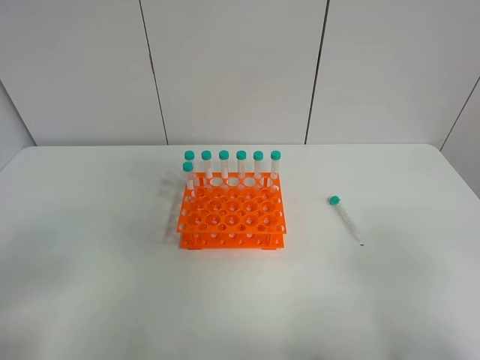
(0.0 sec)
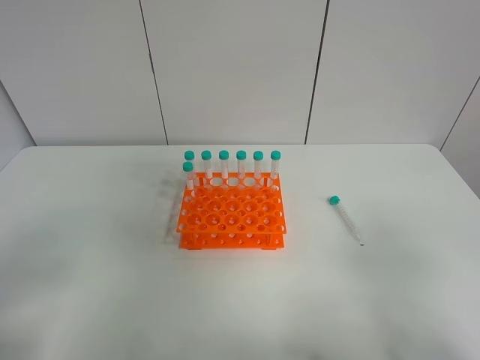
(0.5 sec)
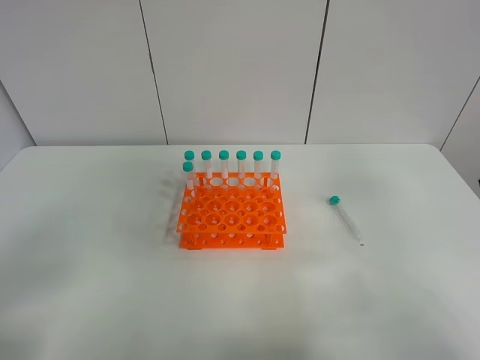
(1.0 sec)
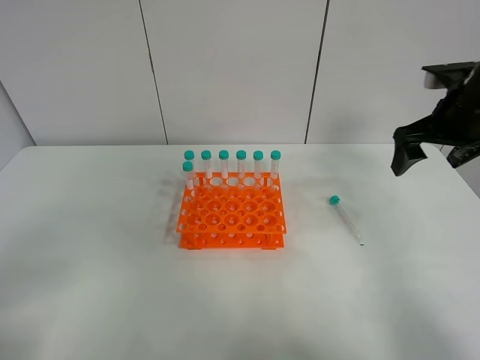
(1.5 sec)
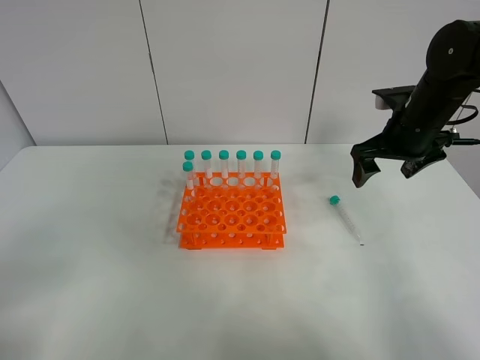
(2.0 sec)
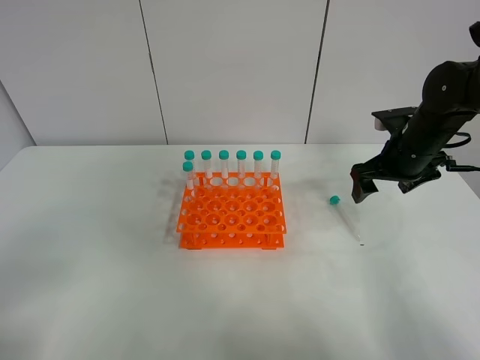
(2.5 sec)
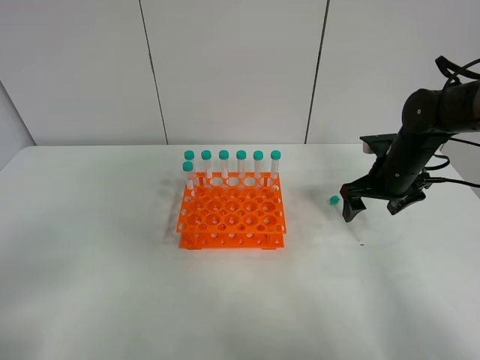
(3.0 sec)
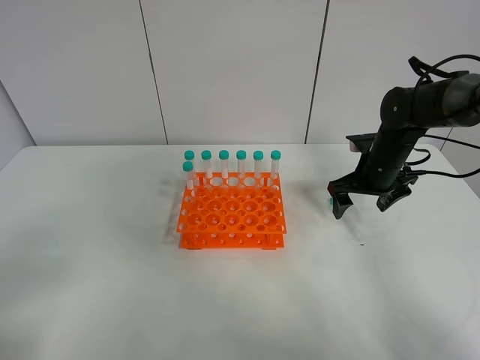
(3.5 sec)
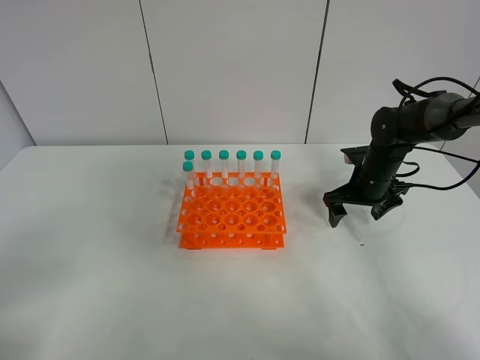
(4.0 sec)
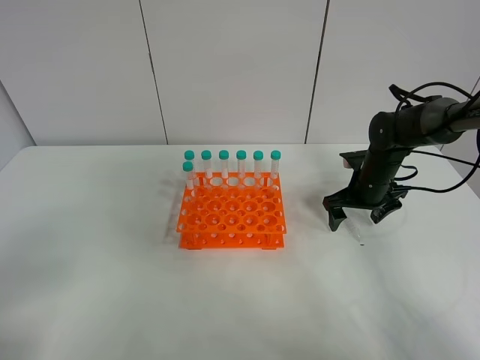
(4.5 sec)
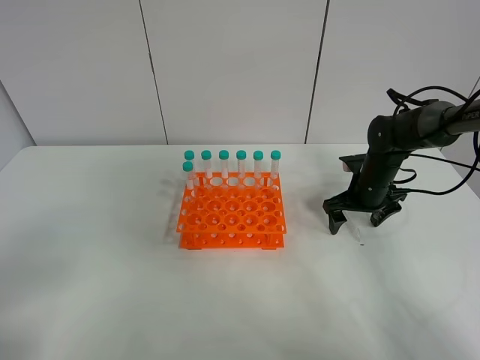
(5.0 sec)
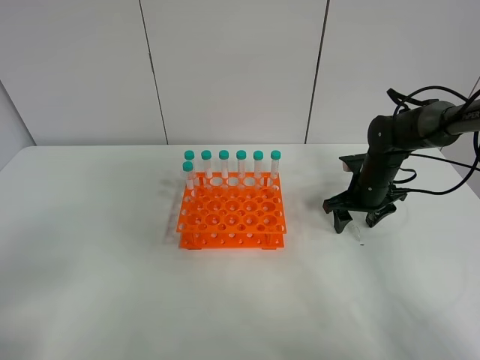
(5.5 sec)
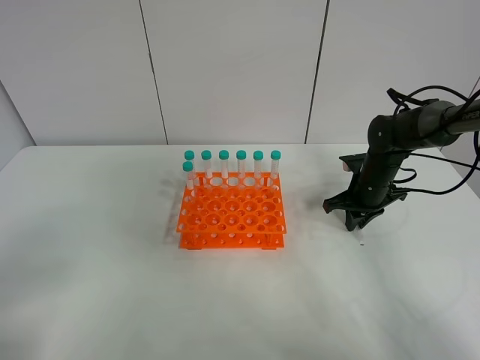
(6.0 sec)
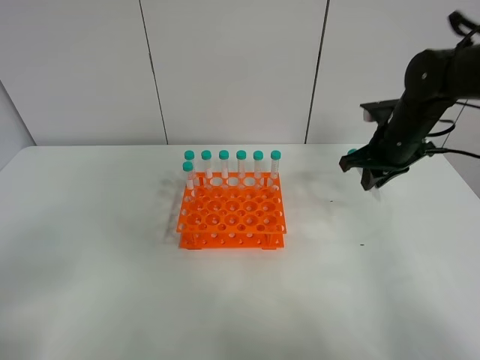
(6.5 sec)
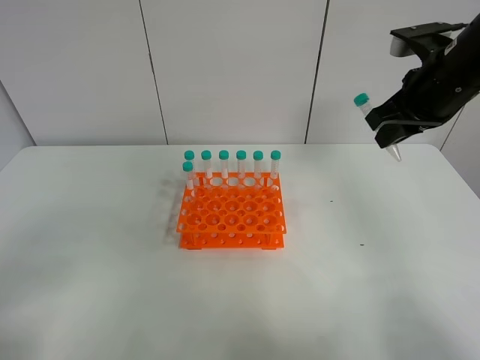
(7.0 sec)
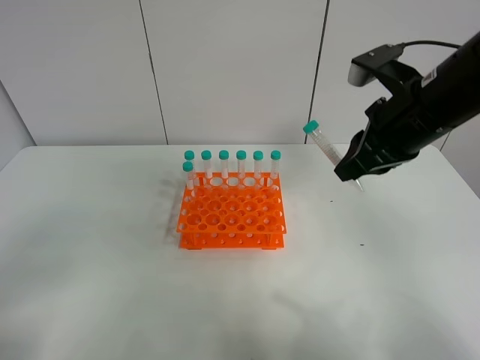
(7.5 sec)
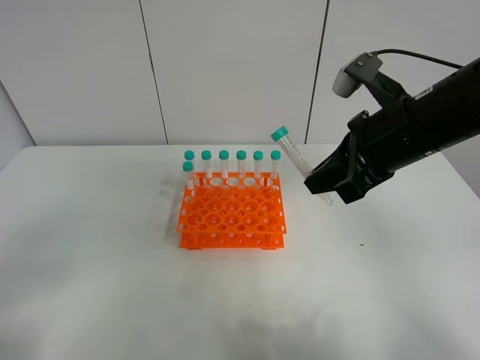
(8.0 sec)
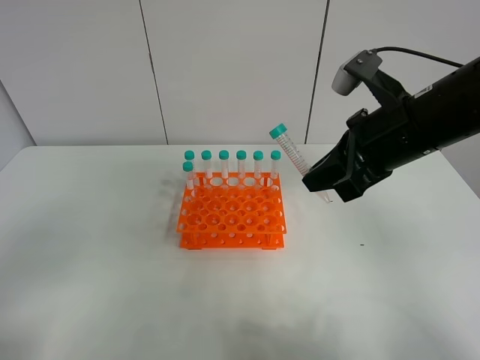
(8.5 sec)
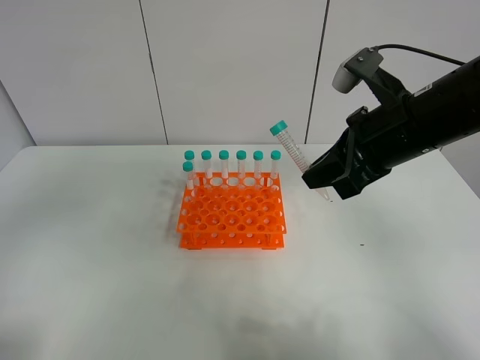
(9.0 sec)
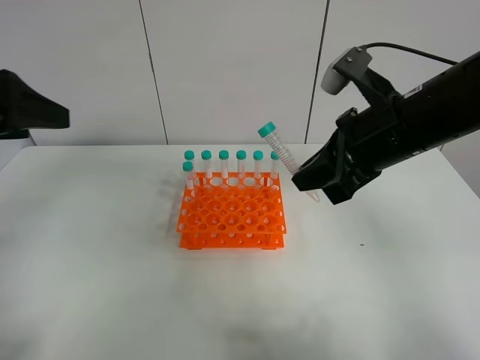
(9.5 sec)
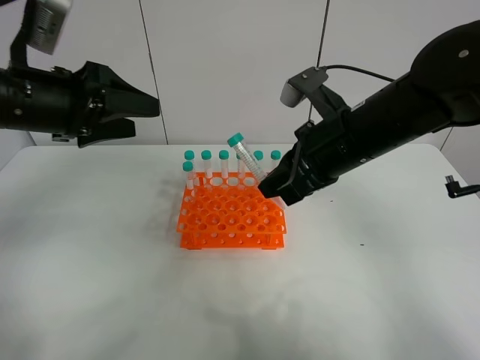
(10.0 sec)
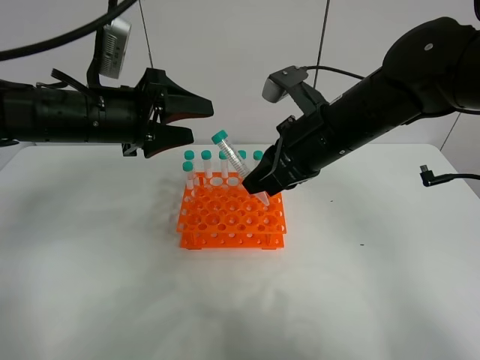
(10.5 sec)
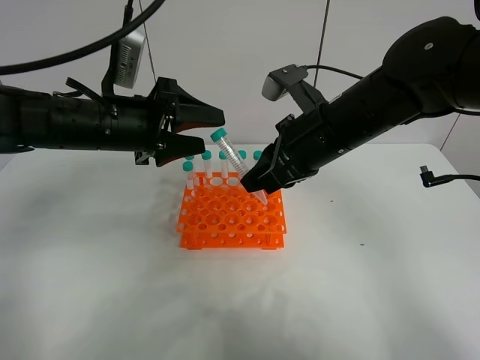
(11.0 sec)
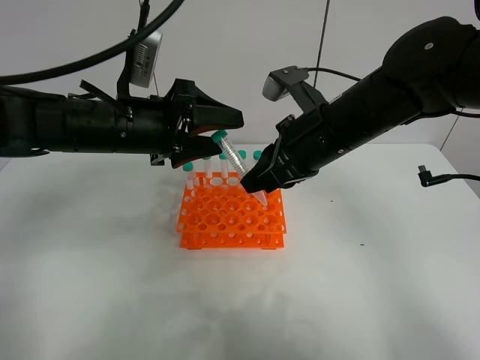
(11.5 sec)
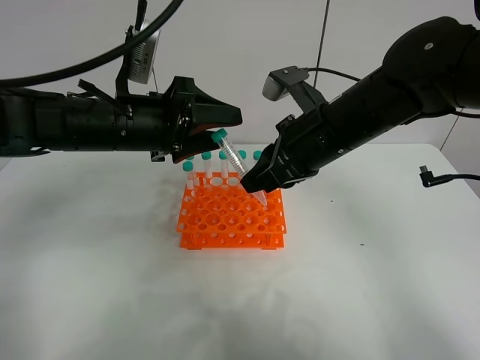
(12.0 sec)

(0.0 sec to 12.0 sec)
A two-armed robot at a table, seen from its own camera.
Task of the whole recording: Put the test tube on the table back onto the test tube rack.
Step, 0.0 sec - 6.5 sec: Pick up the test tube with the right gripper.
0.0 sec - 2.0 sec: The right gripper goes approximately 35 cm forward.
2.0 sec - 4.0 sec: The right gripper moves downward, some 15 cm.
4.0 sec - 6.0 sec: The right gripper closes its fingers.
6.0 sec - 8.0 sec: The right gripper travels upward and backward by about 25 cm.
8.0 sec - 10.0 sec: The right gripper travels to the left by some 5 cm. The left gripper moves forward, roughly 25 cm.
10.0 sec - 12.0 sec: The left gripper is displaced to the right by roughly 10 cm.

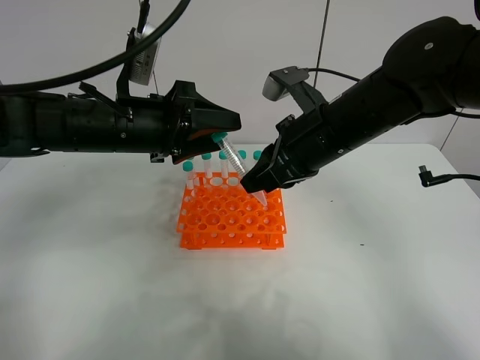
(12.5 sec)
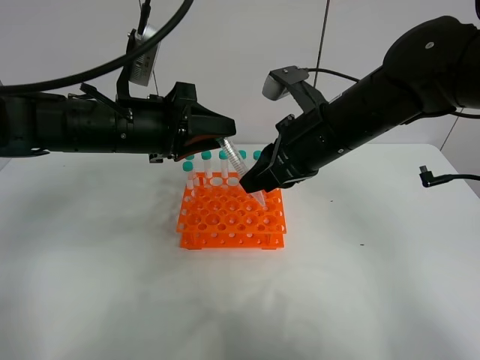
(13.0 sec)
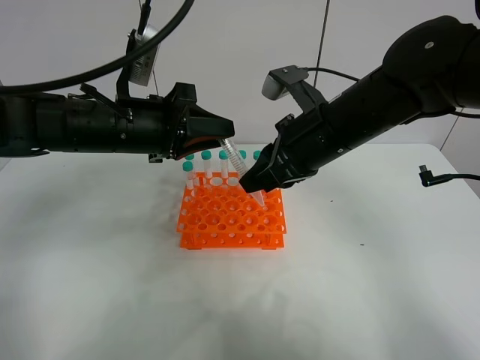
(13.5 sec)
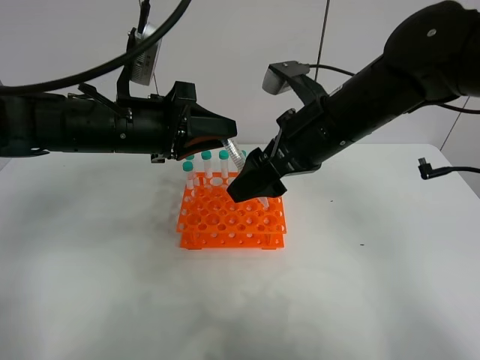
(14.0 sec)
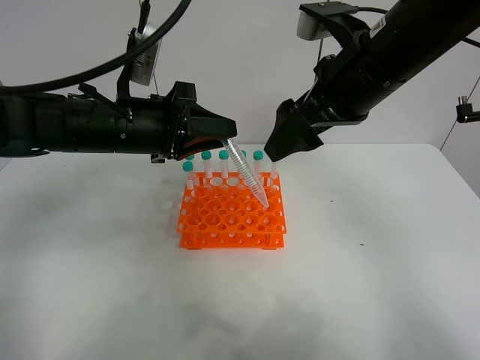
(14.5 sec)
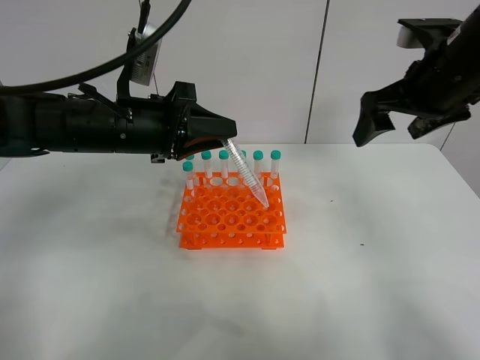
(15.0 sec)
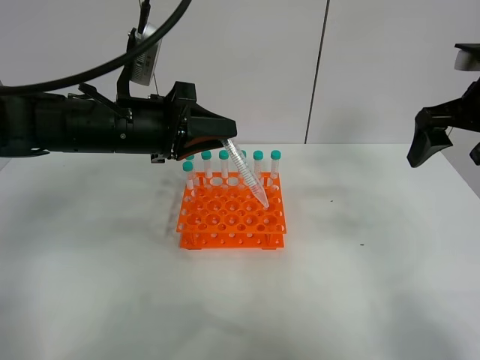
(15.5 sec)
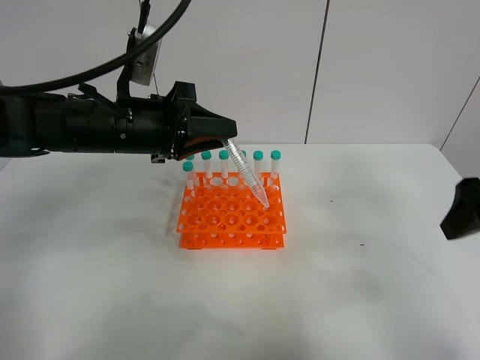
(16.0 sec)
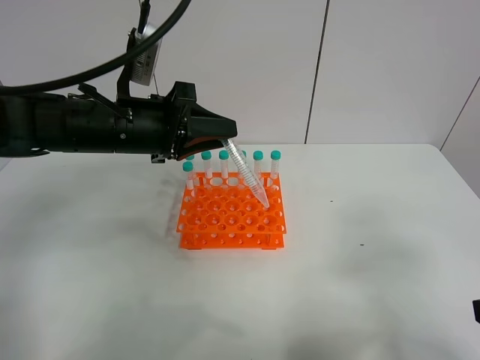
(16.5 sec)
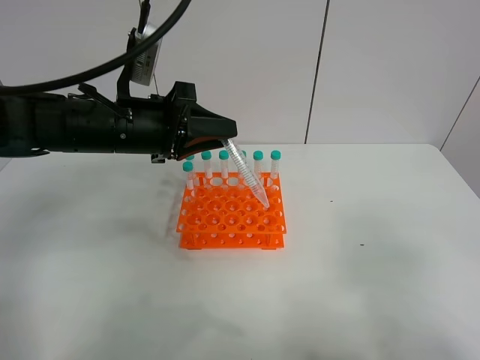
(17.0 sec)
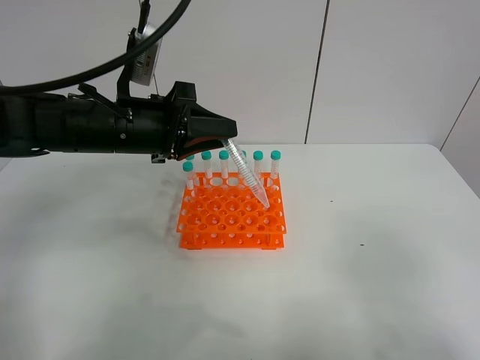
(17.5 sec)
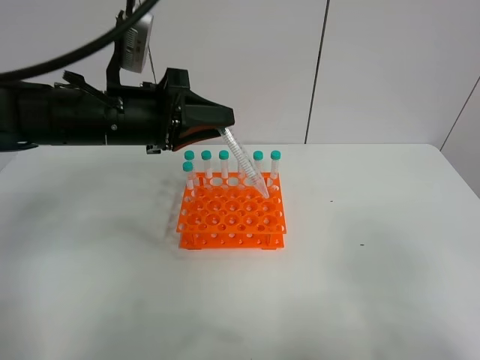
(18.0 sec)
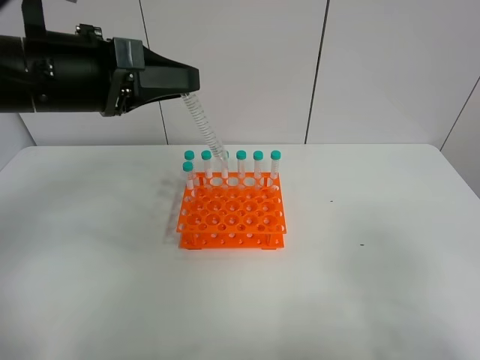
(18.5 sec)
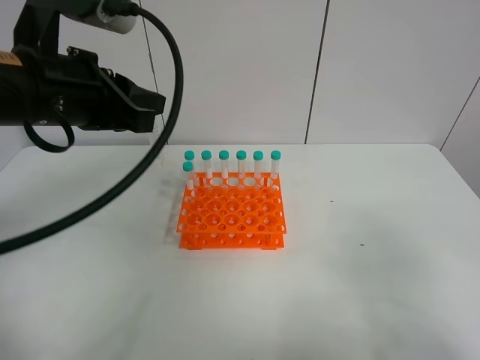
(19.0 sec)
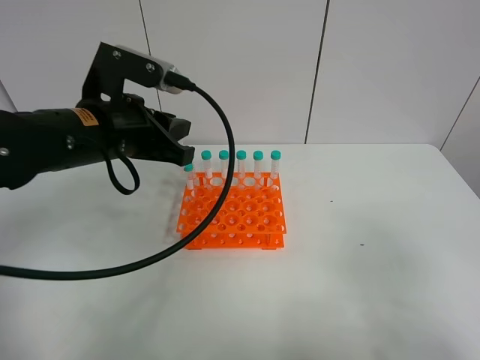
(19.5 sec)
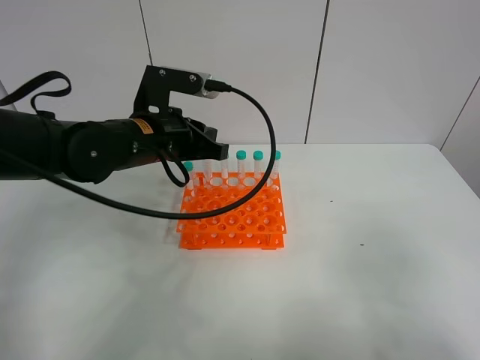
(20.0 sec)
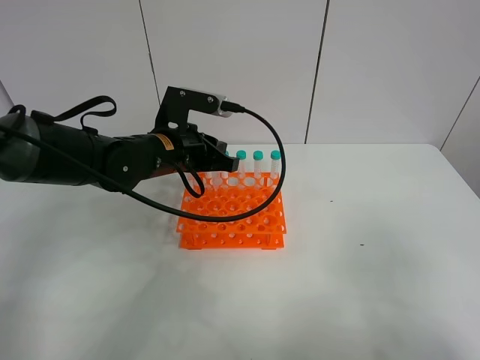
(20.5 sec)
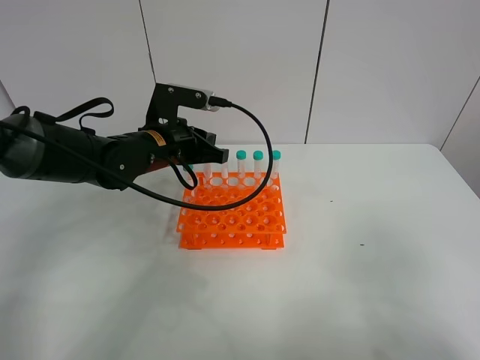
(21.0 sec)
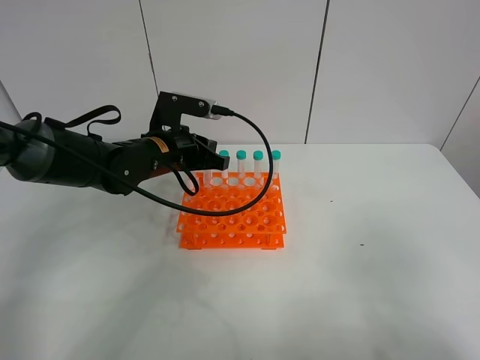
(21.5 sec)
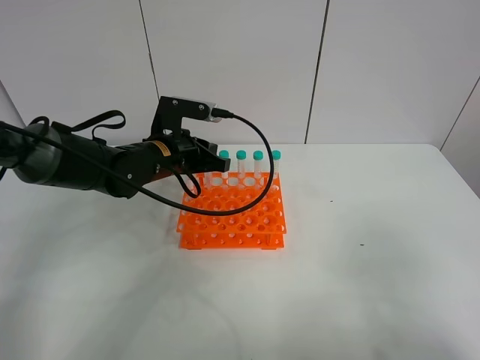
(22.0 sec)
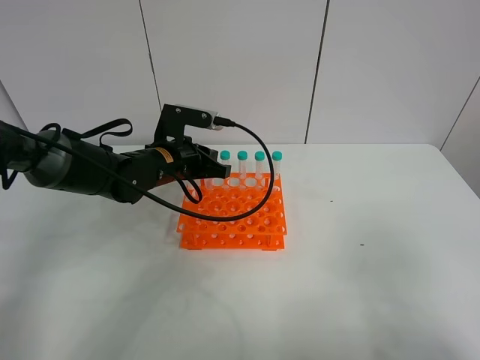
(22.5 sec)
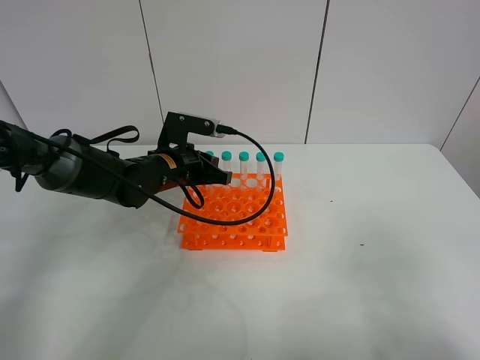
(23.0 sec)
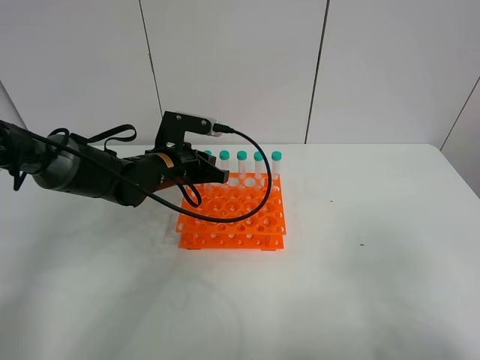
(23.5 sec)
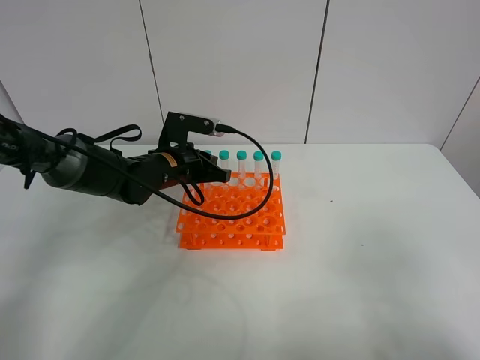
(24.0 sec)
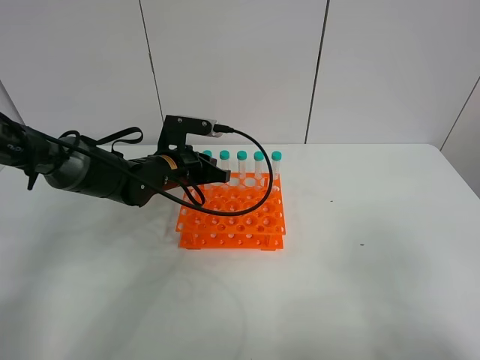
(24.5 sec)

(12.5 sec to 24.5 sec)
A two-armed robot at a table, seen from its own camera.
Task of the whole recording: Put the test tube on the table back onto the test tube rack.
Step, 12.5 sec - 14.5 sec: Move the test tube from the right gripper to the left gripper.
12.5 sec - 14.5 sec: The right gripper moves upward, some 5 cm, and opens its fingers. Meanwhile the left gripper closes up.
14.5 sec - 16.5 sec: The right gripper shifts roughly 30 cm backward and to the right.
16.5 sec - 18.5 sec: The left gripper moves upward, about 10 cm.
18.5 sec - 20.5 sec: The left gripper moves downward, forward and to the right, approximately 20 cm.
20.5 sec - 22.5 sec: The grippers make only small movements.
22.5 sec - 24.5 sec: The grippers move only a little.

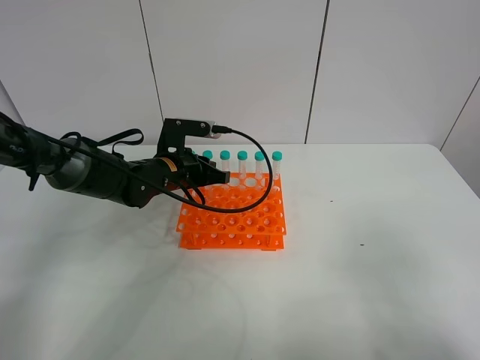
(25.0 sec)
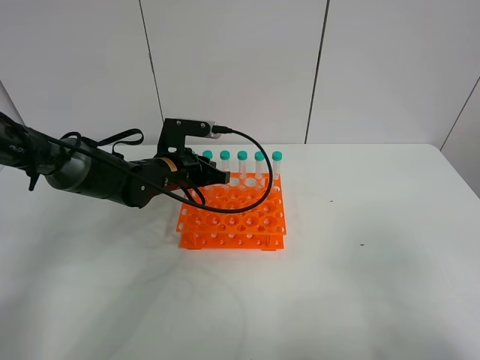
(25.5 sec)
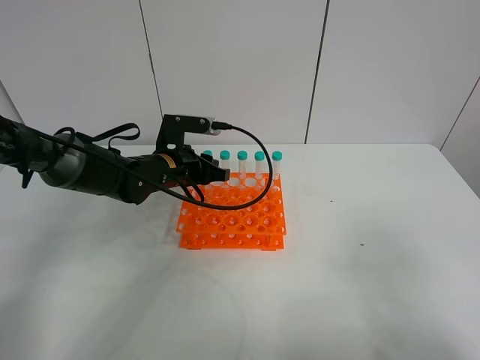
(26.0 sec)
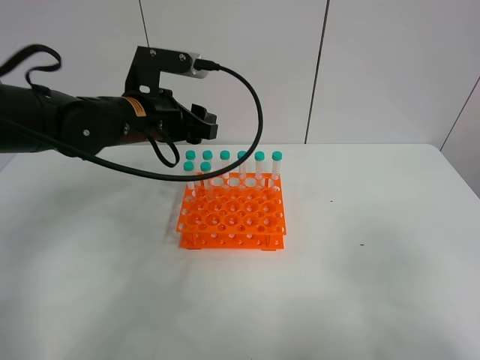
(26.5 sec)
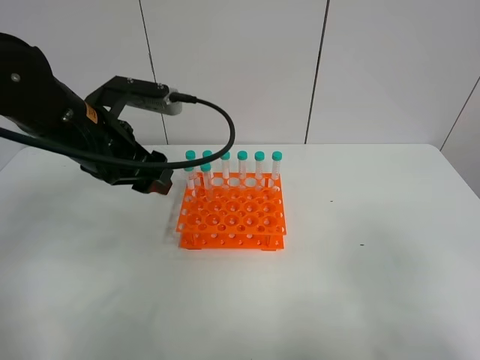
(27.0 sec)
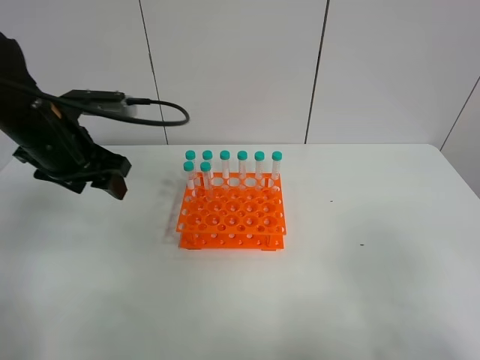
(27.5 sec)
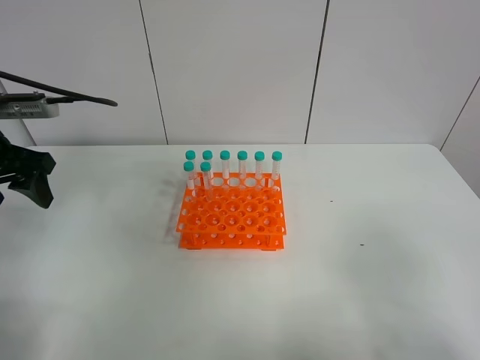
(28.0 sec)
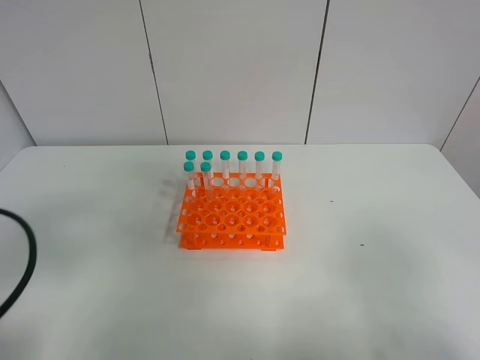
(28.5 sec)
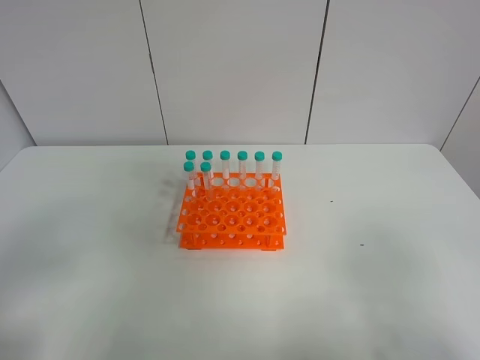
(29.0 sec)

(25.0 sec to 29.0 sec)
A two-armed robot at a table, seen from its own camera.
Task of the whole recording: Put the test tube on the table back onto the test tube rack.
25.0 sec - 27.0 sec: The left gripper travels upward and backward by about 15 cm, and opens up.
27.0 sec - 29.0 sec: The left gripper heads backward and to the left, covering roughly 30 cm.
